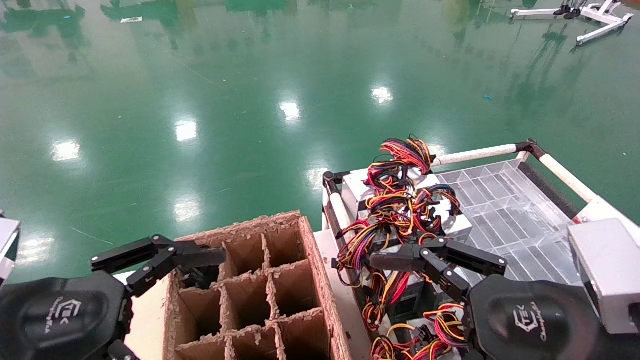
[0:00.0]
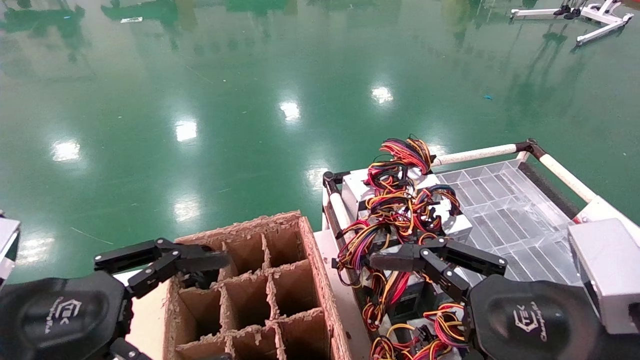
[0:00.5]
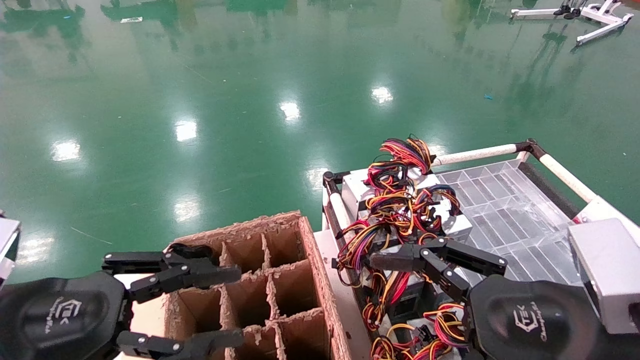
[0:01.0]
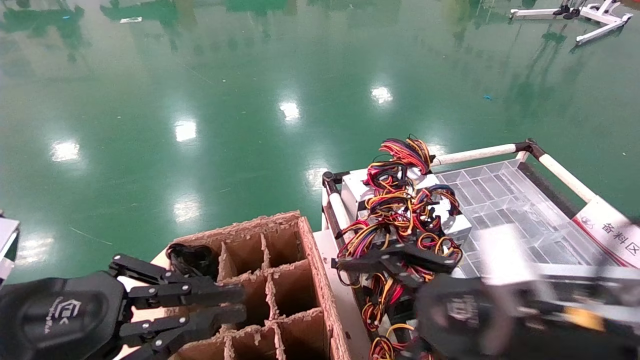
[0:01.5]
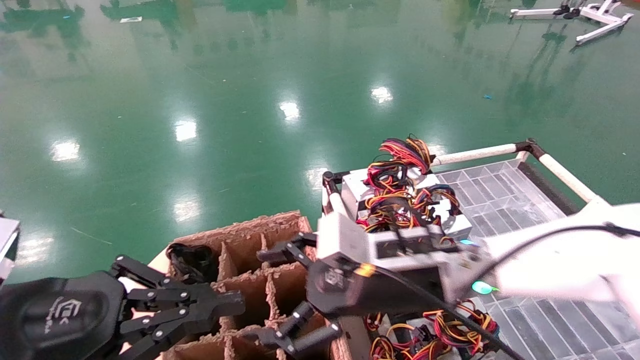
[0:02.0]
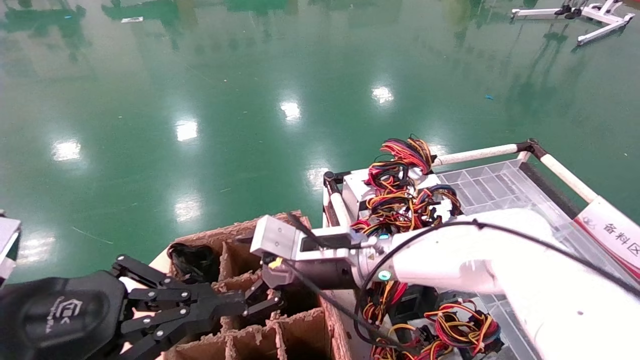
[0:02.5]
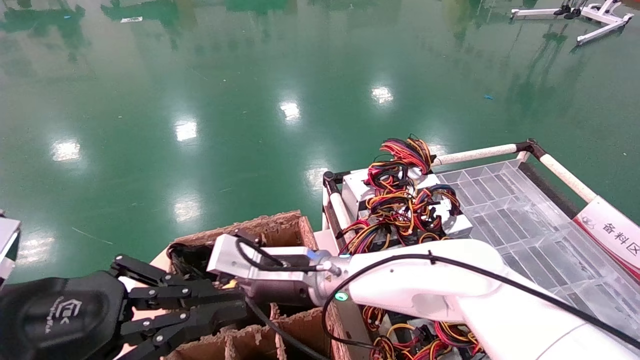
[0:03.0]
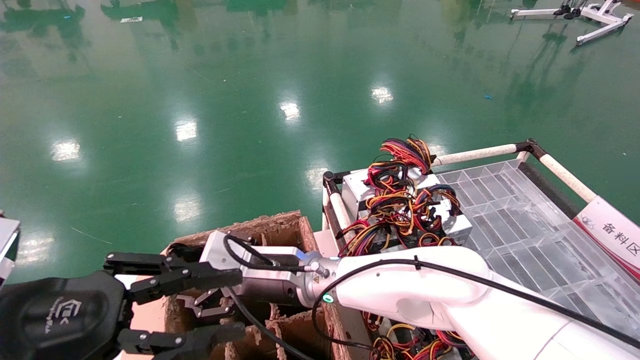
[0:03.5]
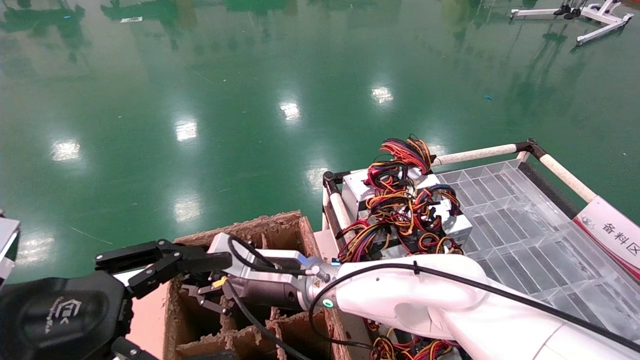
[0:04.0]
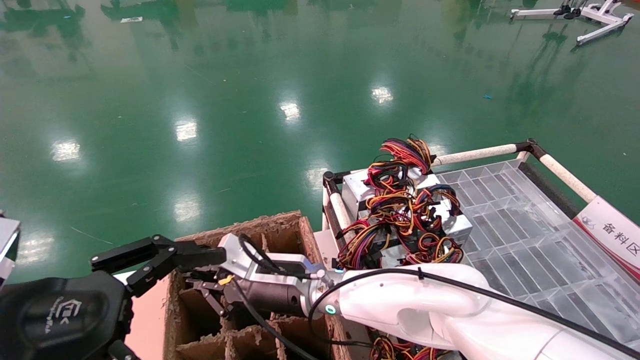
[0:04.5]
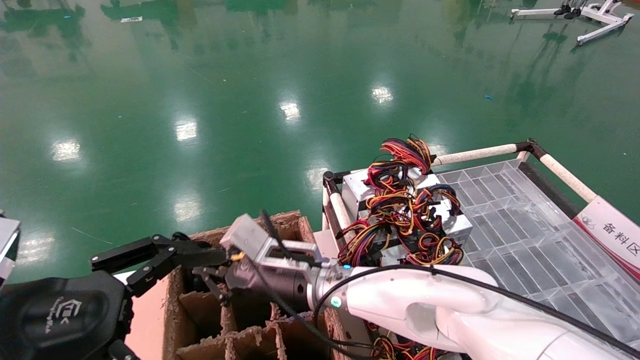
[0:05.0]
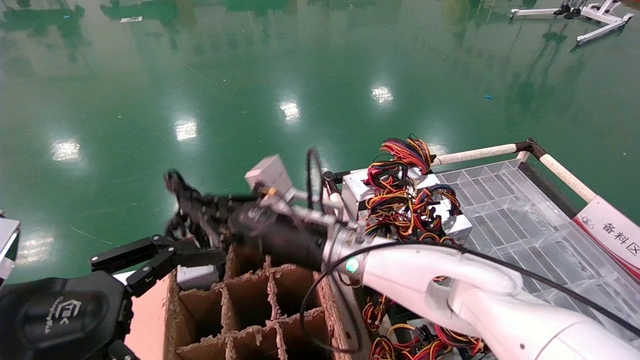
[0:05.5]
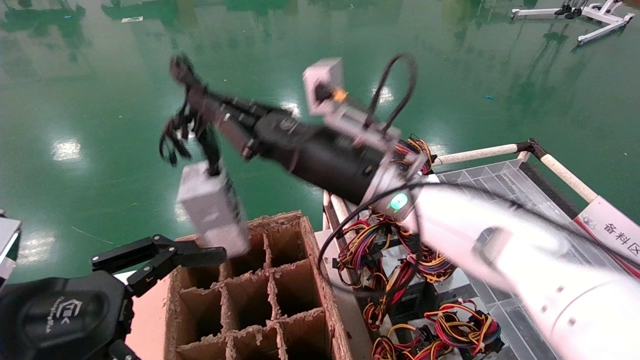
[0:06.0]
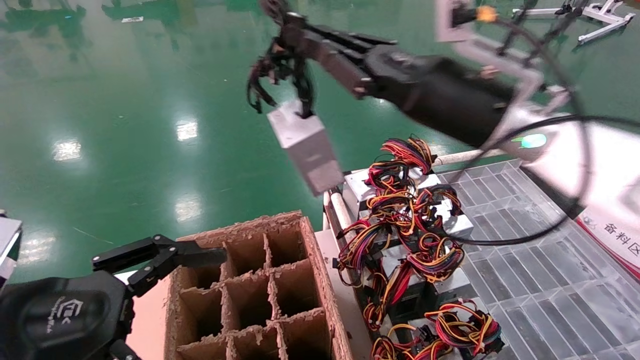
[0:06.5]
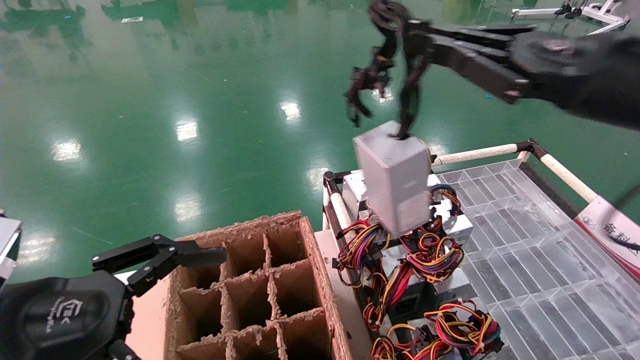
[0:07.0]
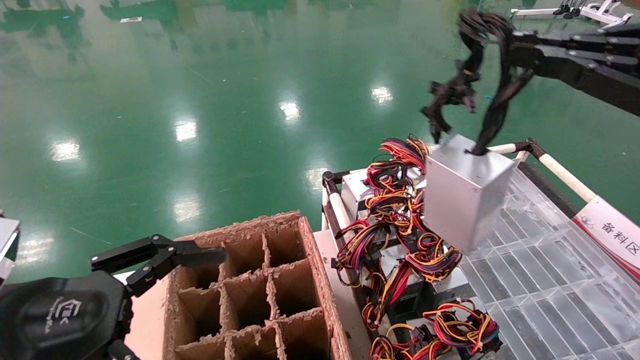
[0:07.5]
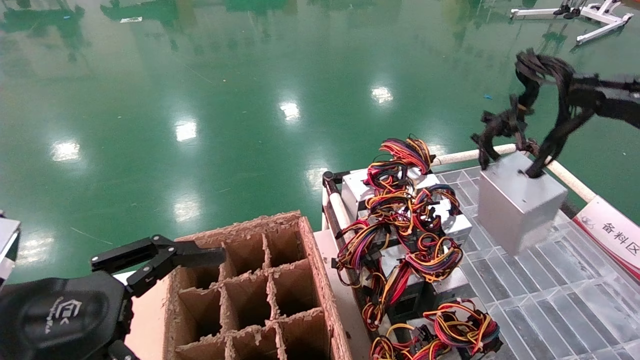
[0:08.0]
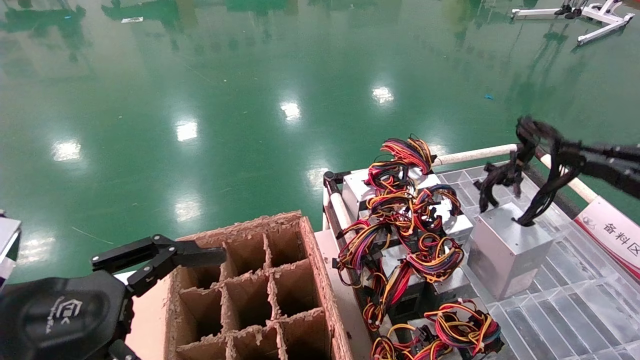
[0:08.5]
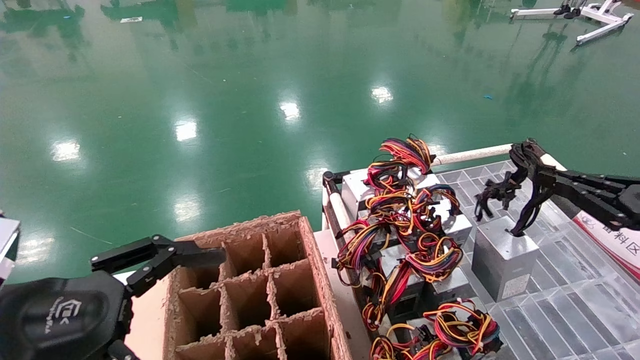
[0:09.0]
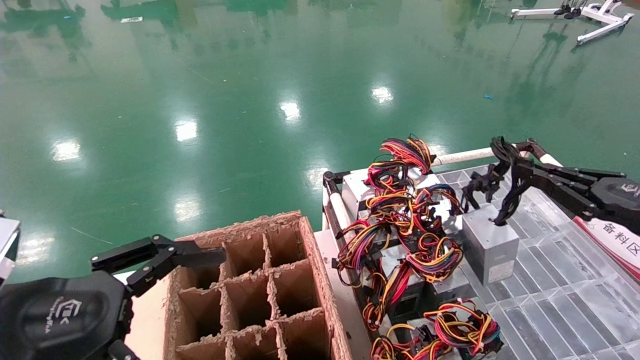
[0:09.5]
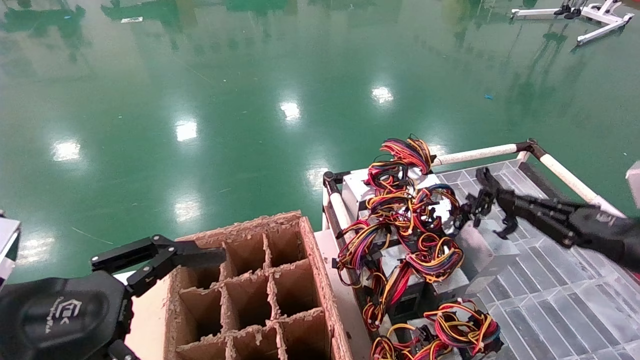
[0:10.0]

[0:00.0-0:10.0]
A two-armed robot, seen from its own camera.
Step, 0:01.0 to 0:04.5: Grab and lift the power supply from the large box.
0:00.0 to 0:02.0: The left gripper closes. The right gripper is displaced forward and to the left by about 20 cm.
0:02.0 to 0:04.0: The left gripper opens up. The right gripper heads to the left, forward and downward, covering some 15 cm, and closes up.
0:04.0 to 0:06.0: The right gripper moves upward and to the right, roughly 20 cm, and closes its fingers.
0:06.0 to 0:08.0: The right gripper goes about 40 cm to the right and backward.
0:08.0 to 0:10.0: The right gripper travels downward and forward by about 20 cm.

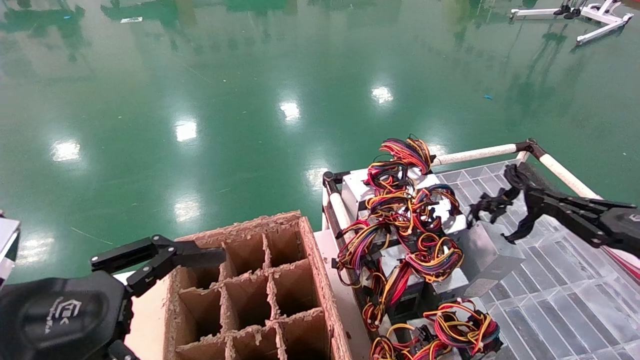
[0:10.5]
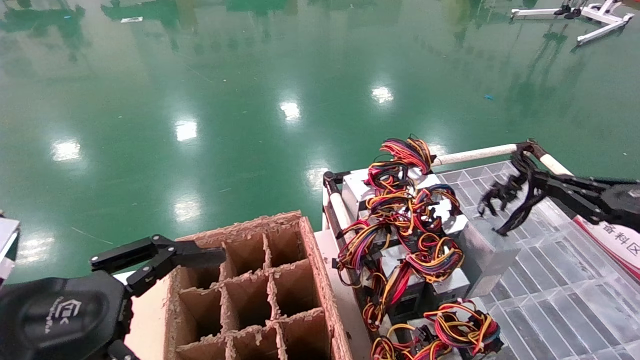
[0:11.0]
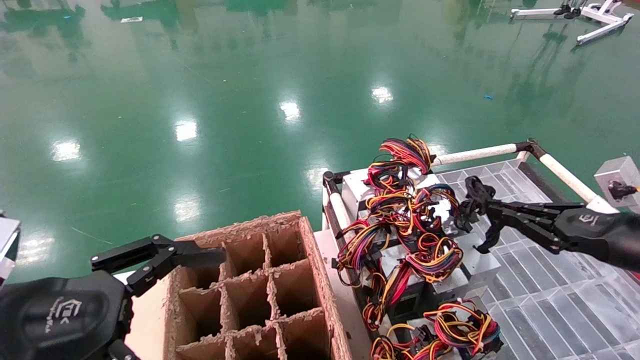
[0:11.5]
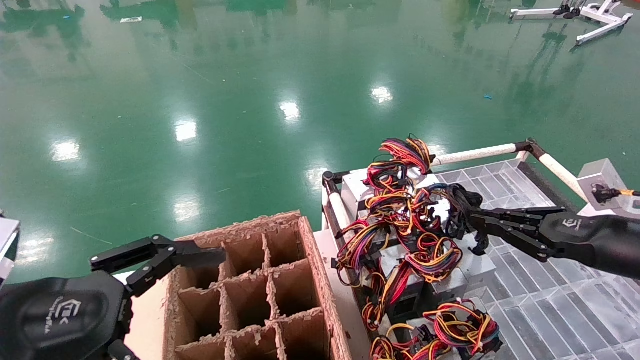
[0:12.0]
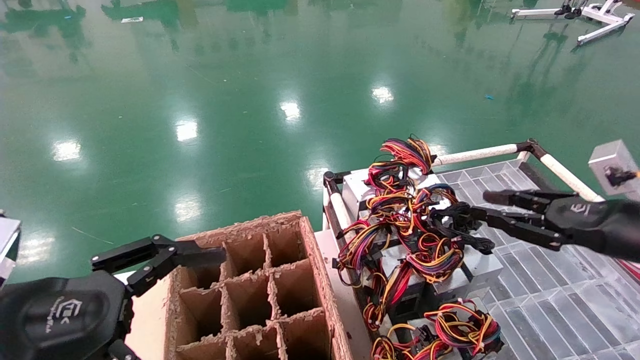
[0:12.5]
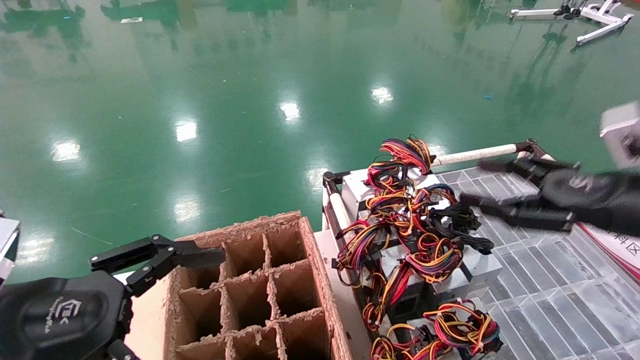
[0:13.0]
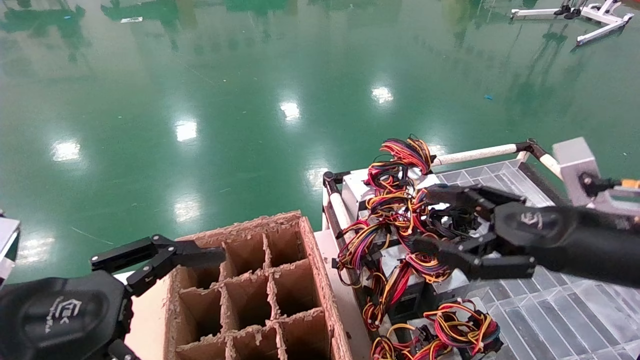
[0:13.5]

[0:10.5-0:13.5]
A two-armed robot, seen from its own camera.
0:10.5 to 0:12.0: The right gripper travels to the left by some 5 cm.
0:12.0 to 0:13.5: The right gripper travels to the left by about 10 cm, and opens.

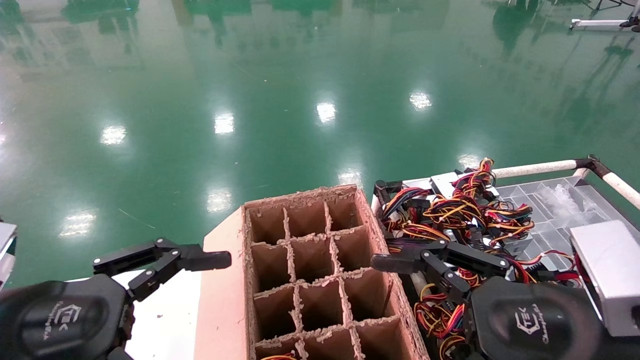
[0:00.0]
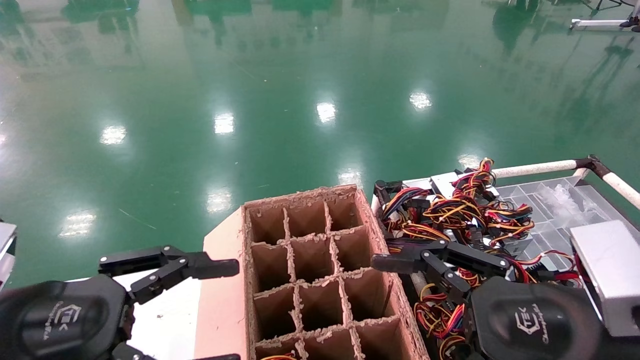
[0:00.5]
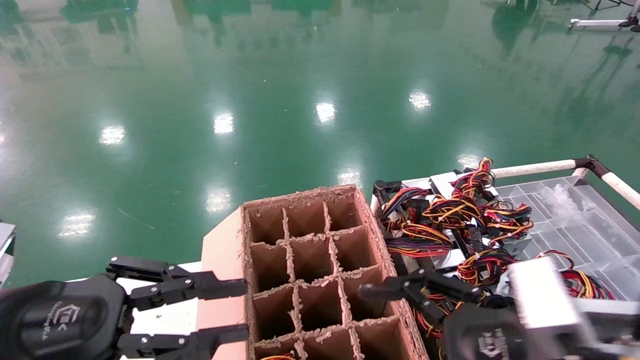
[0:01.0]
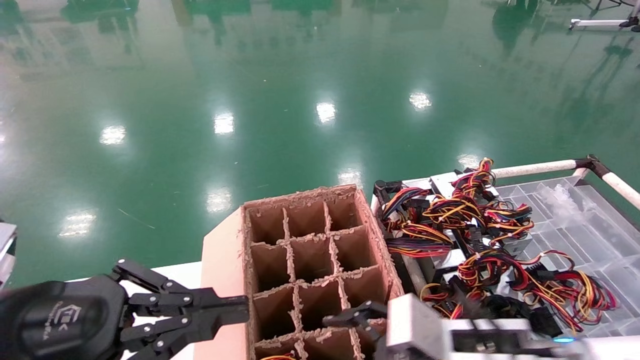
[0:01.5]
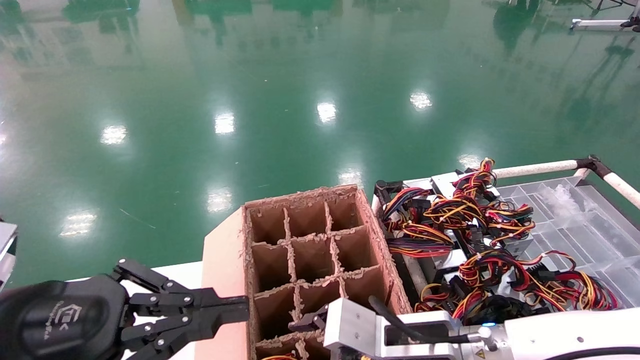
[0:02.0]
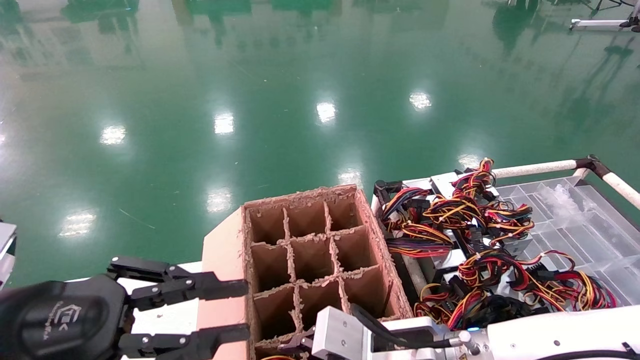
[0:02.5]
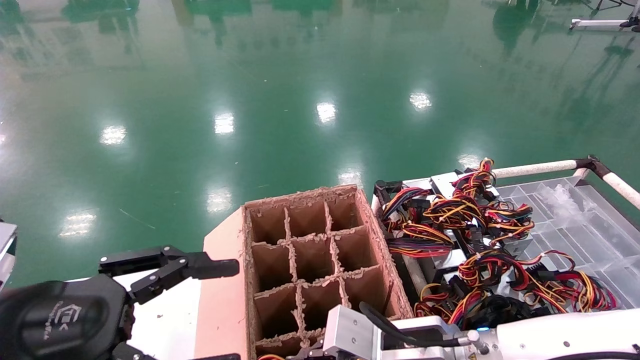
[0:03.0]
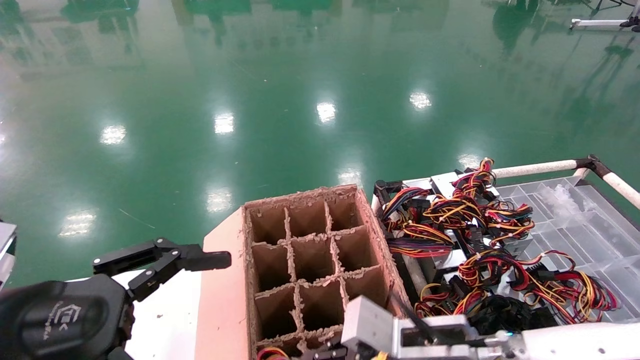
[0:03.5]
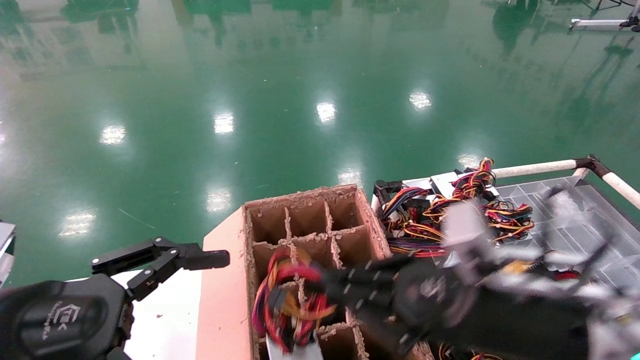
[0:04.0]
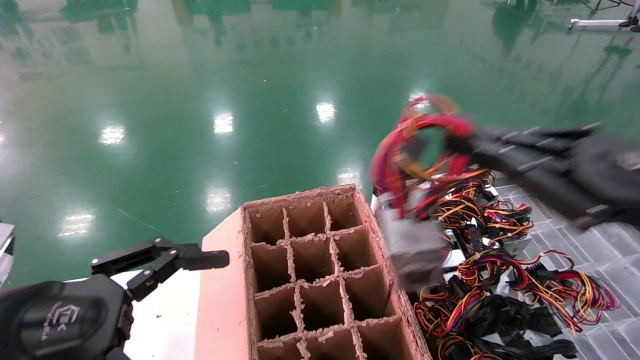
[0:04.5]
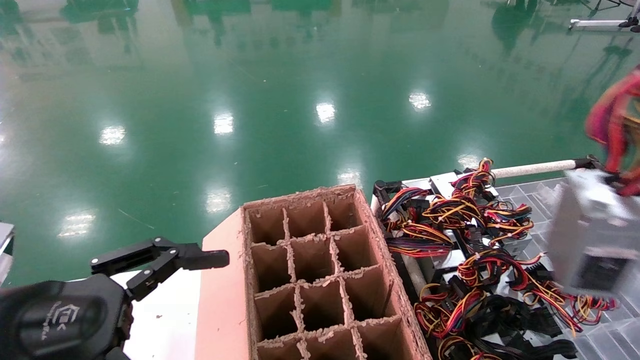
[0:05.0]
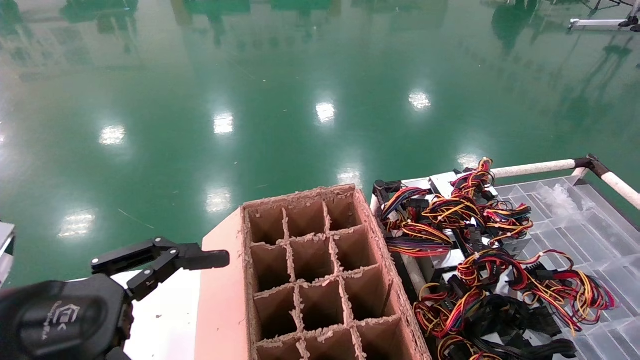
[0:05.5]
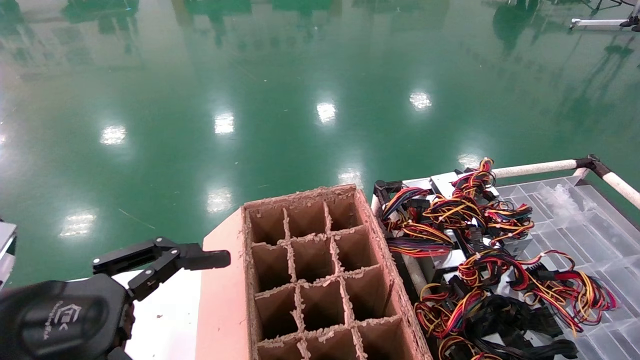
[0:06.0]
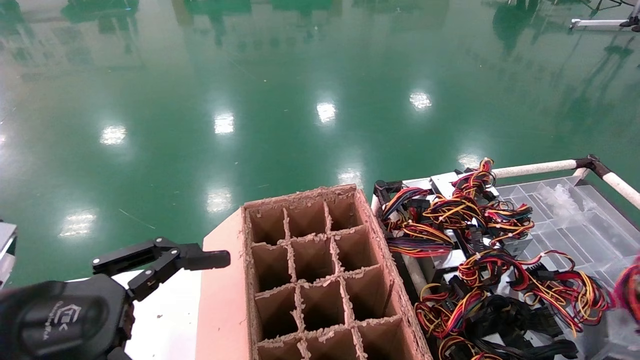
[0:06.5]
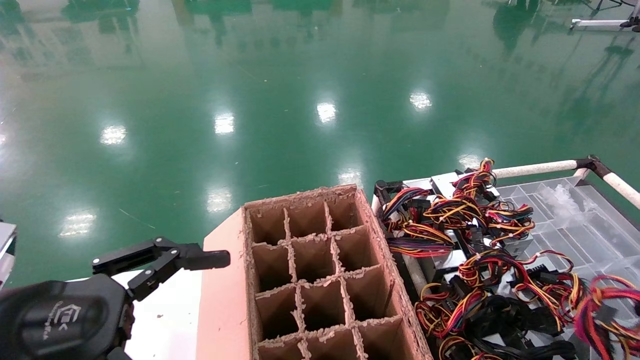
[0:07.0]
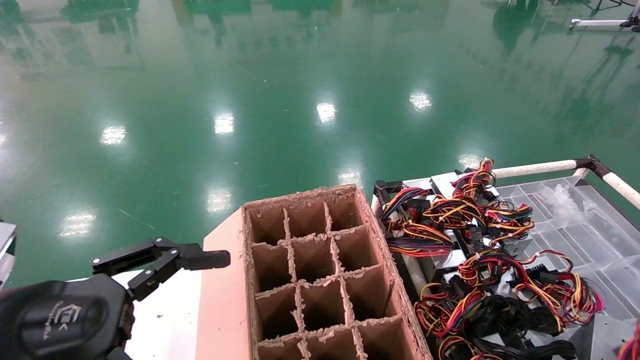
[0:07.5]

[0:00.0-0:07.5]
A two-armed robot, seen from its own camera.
Step, 0:02.0 to 0:03.0: Grab and lift the power supply from the large box.
0:00.0 to 0:02.0: The right gripper is displaced to the left, forward and downward by some 20 cm. Meanwhile the left gripper closes up.
0:02.0 to 0:04.0: The left gripper opens its fingers; the right gripper goes roughly 10 cm upward and to the right, and closes its fingers.
0:04.0 to 0:05.5: The right gripper travels to the right and backward by approximately 40 cm.
0:05.5 to 0:07.5: The right gripper travels downward by some 15 cm.
